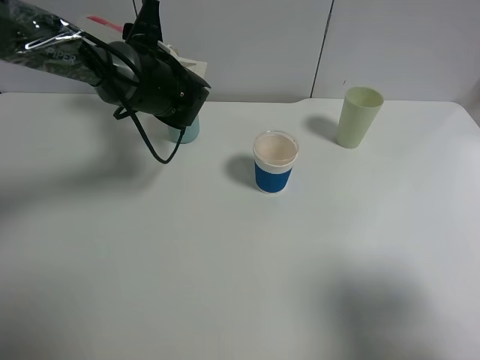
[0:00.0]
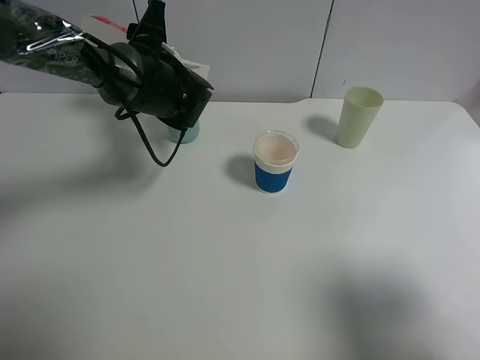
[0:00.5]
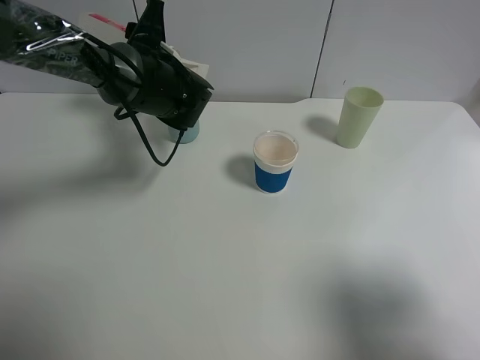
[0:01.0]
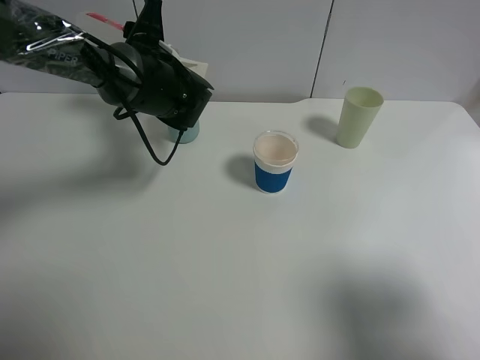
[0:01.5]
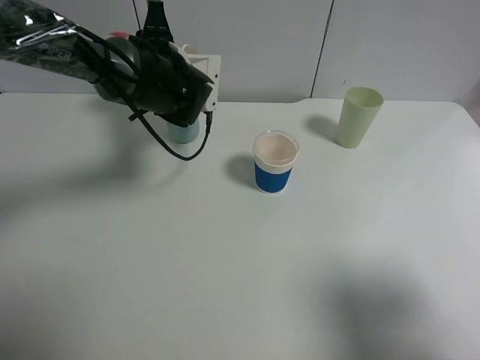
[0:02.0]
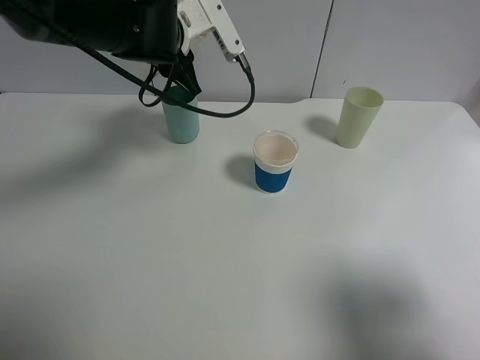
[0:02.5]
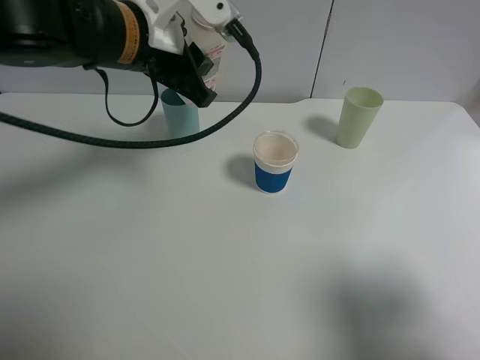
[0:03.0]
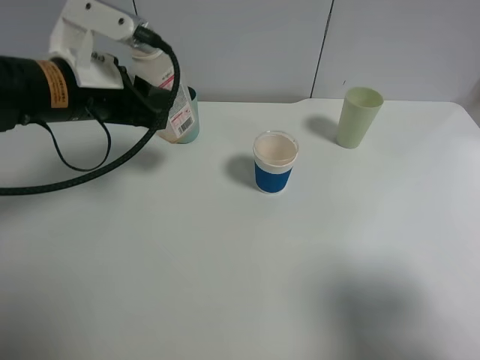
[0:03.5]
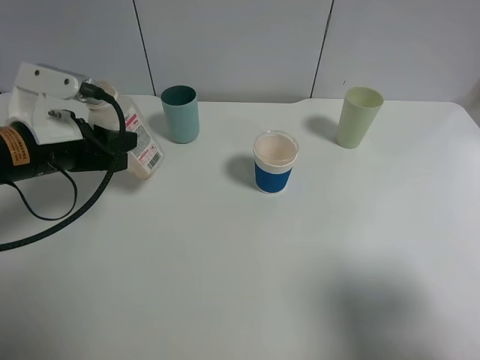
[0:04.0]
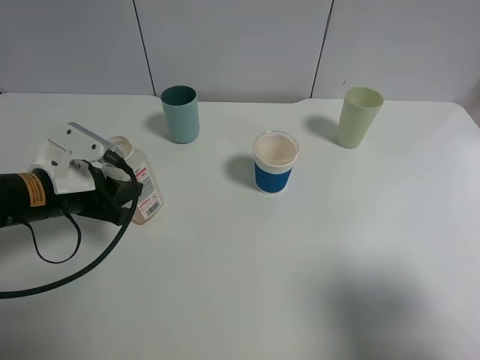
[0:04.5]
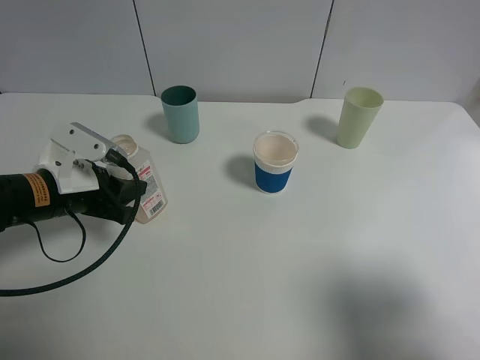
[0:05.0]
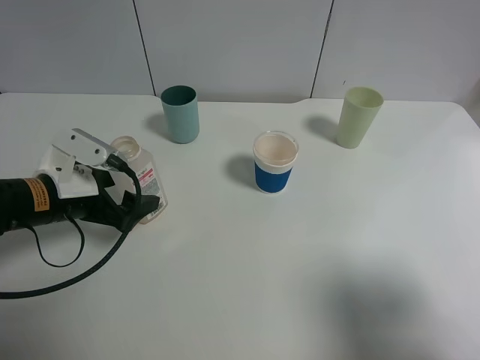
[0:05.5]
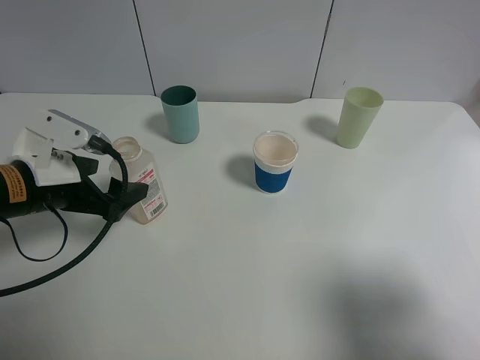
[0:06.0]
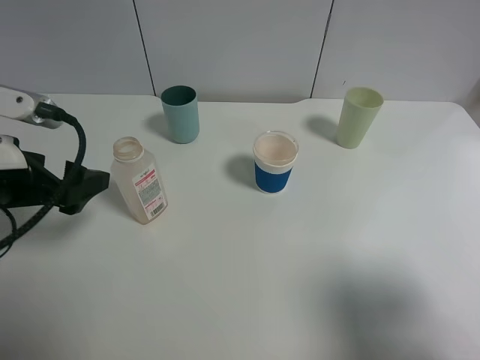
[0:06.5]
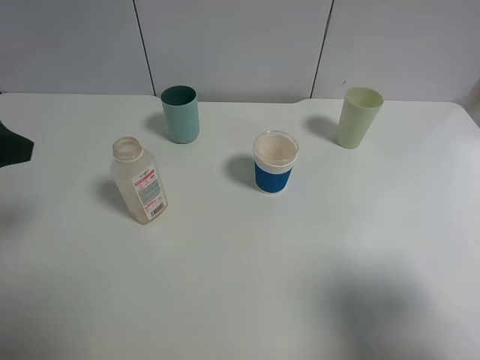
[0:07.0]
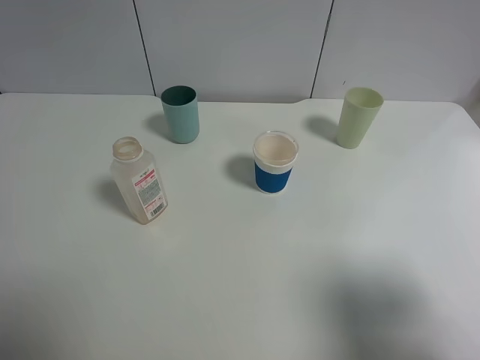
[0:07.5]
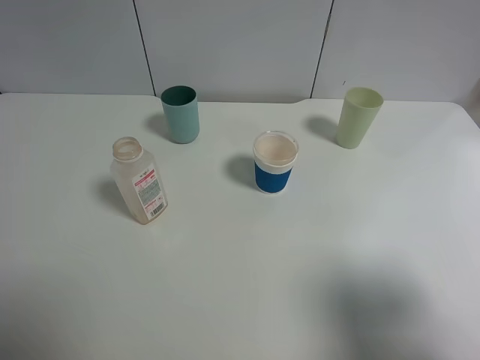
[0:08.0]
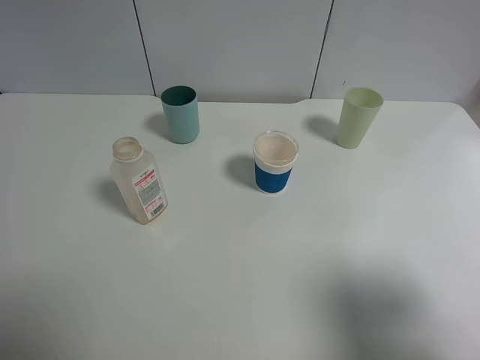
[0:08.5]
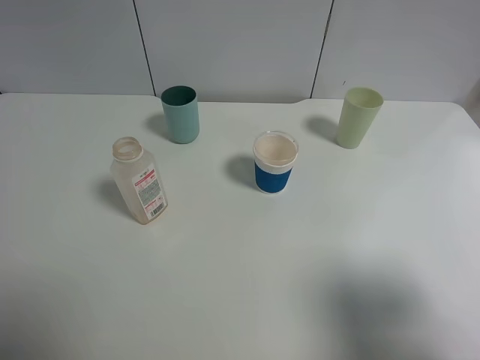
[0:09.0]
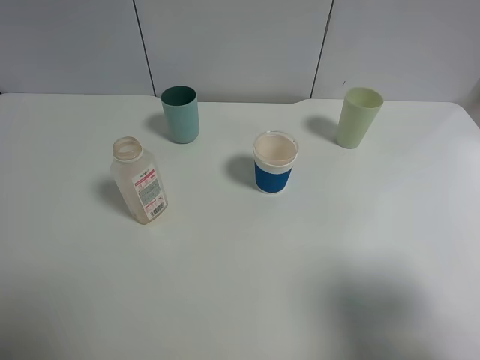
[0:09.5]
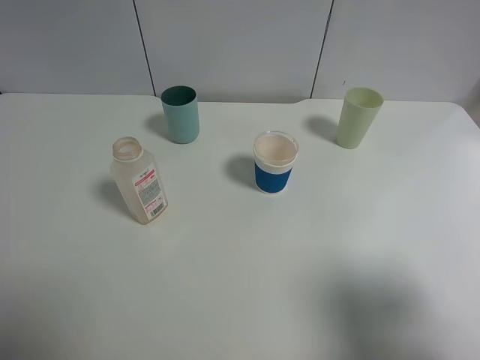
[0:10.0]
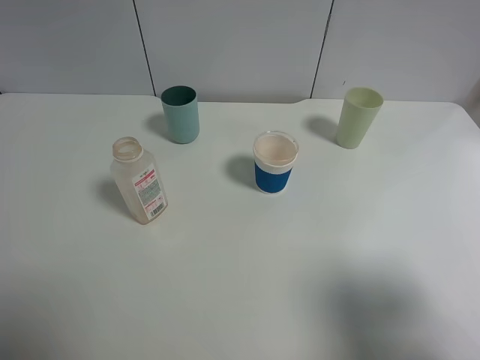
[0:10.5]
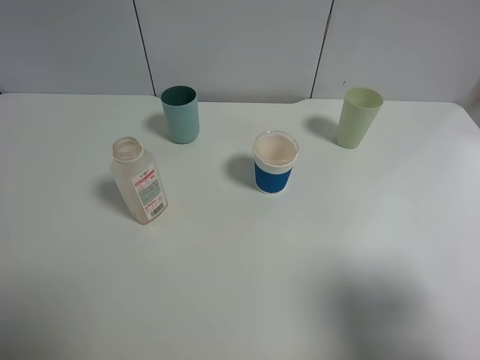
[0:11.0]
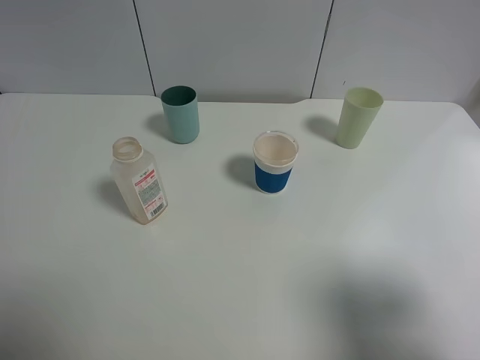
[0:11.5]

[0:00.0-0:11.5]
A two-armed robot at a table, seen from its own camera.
Task of the whole recording: use a gripper to hold the bottle of the drink and pour it into a random cup.
Step, 0:00.0 to 0:02.0: Pour the cranberry juice into the cyan cup with the left gripper.
Step, 0:02.5 to 0:05.5: Place the cranberry juice bottle on the table with the left gripper.
0:00.0 to 0:02.0: The grippers make only small movements.
0:02.0 to 0:04.0: The left gripper shifts about 20 cm backward and to the left.
0:04.0 to 0:06.0: The left gripper opens its fingers.
0:06.0 to 0:07.5: The left gripper travels upward and backward by roughly 20 cm.
0:09.5 to 0:11.5: The two grippers keep their place.

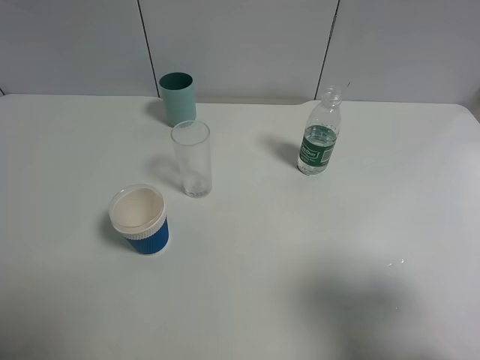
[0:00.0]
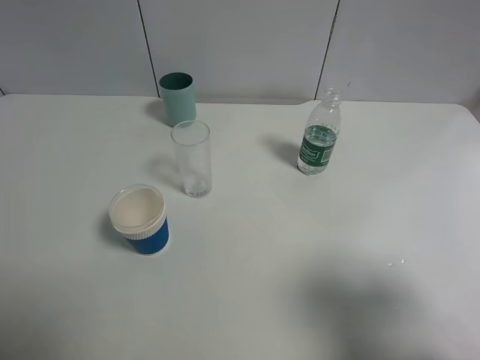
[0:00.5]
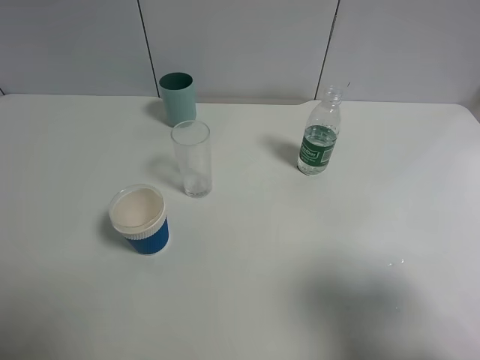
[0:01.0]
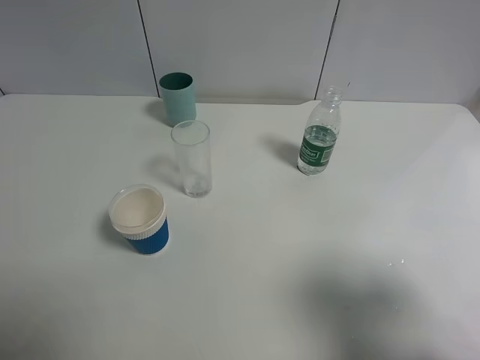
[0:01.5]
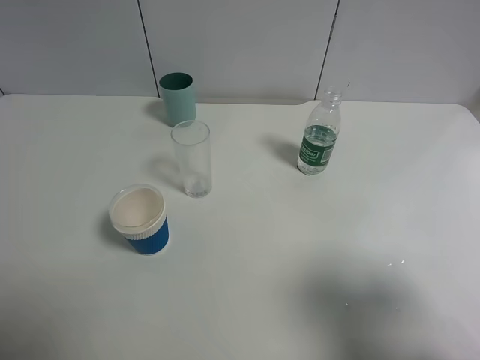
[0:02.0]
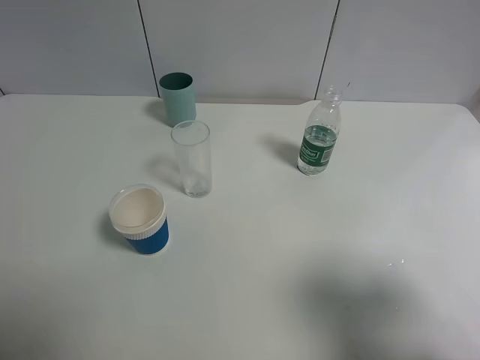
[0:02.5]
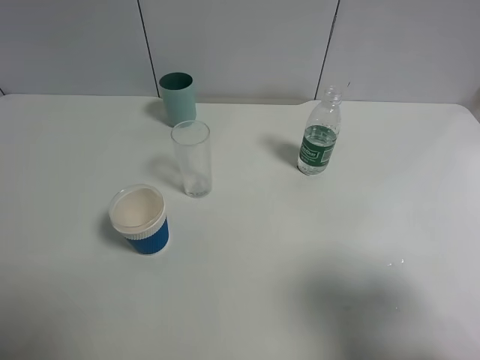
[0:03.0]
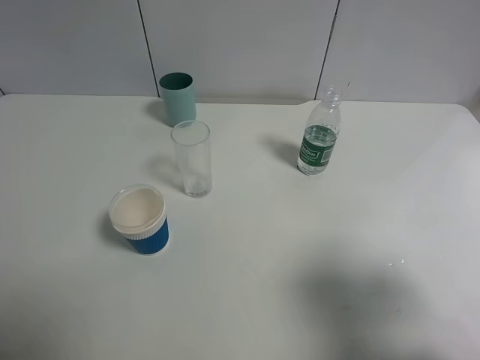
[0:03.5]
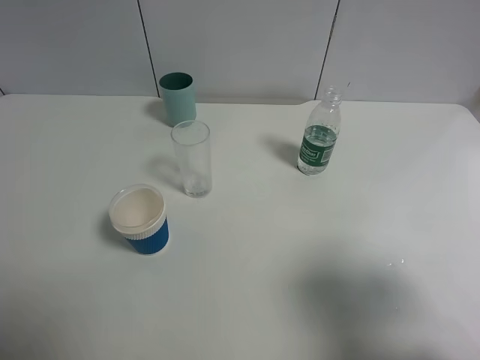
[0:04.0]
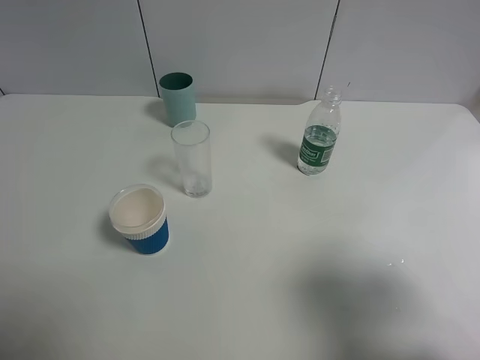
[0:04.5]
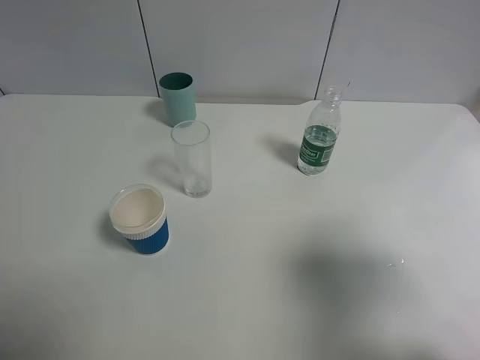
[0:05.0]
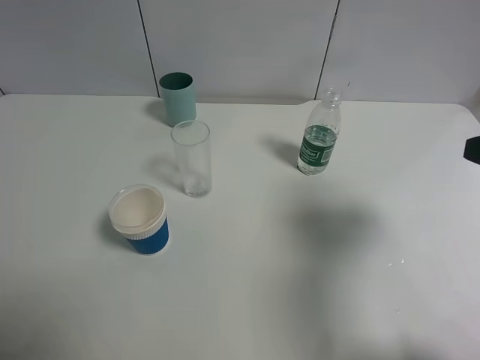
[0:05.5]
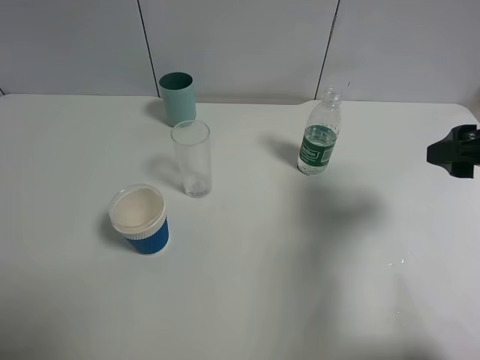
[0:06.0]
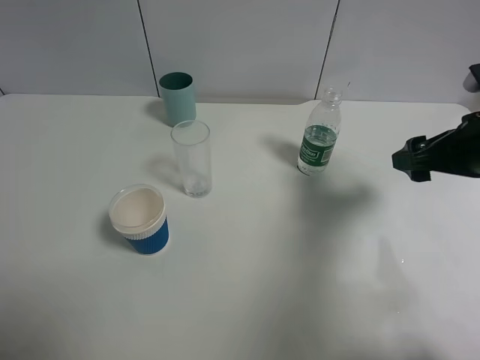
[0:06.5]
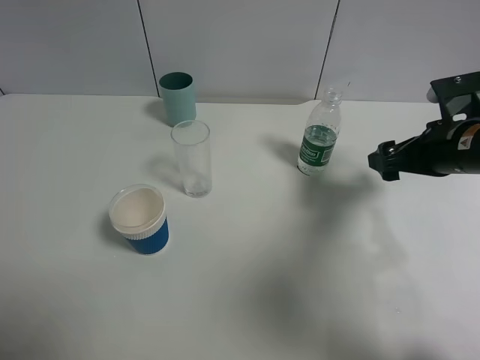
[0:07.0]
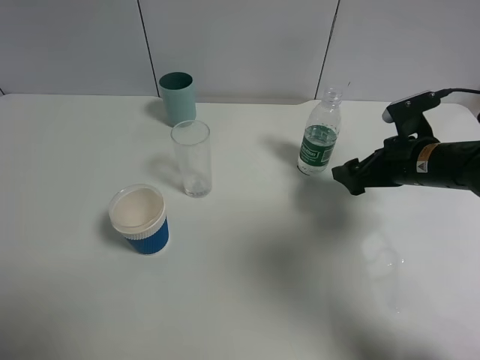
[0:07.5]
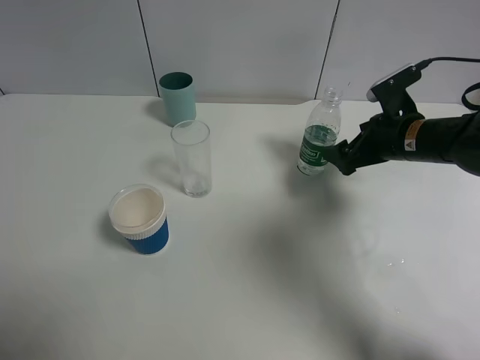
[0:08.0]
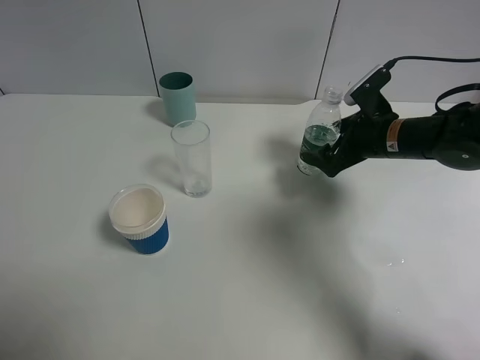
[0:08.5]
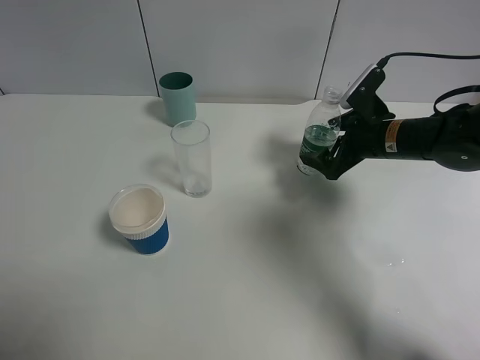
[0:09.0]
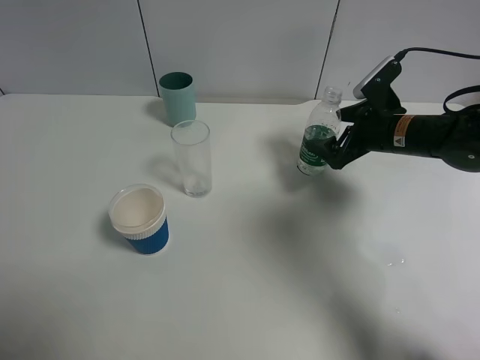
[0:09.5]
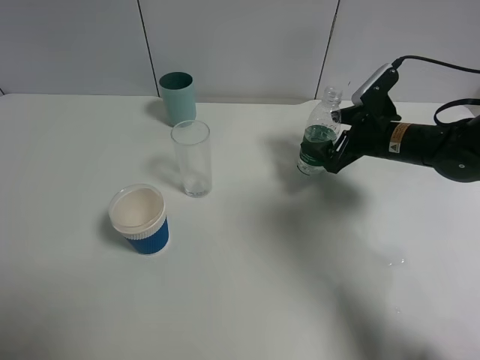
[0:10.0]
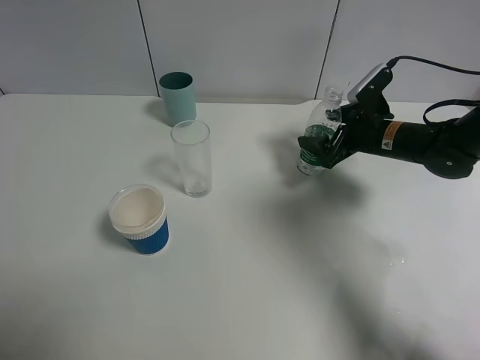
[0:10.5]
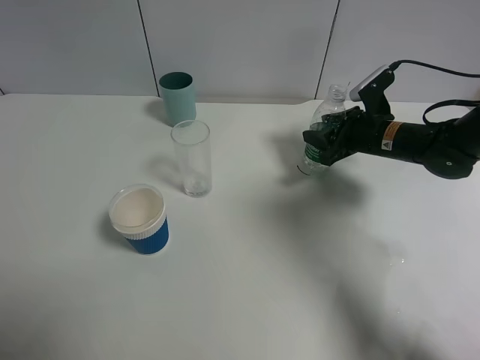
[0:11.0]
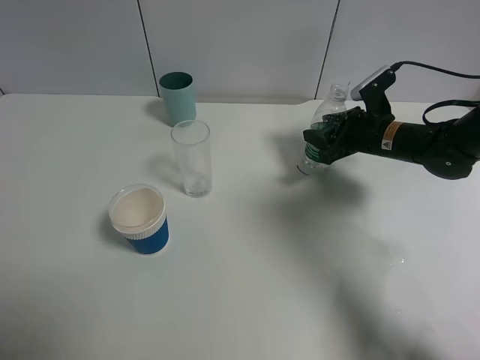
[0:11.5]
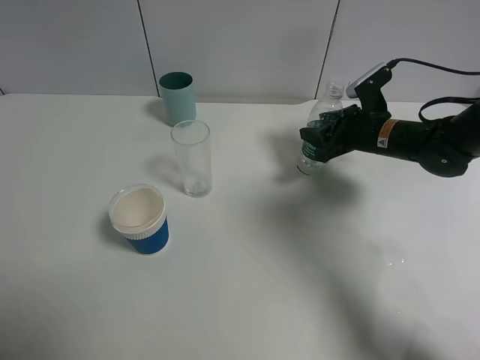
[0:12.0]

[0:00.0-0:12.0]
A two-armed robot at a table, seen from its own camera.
Task of the whole recording: use a gripper to hold the bottle of the drink and pour it into a random cup.
Step, 0:00.0 to 0:10.5: Grasp the mineral water bottle with the right gripper.
0:00.0 to 0:02.0: The two grippers keep their place.
0:04.0 to 0:06.0: The right gripper shifts about 15 cm forward.
0:06.0 to 0:08.0: The right gripper travels forward and downward by about 15 cm.
0:08.0 to 0:10.0: The grippers move only a little.
0:10.0 to 0:12.0: The right gripper closes.

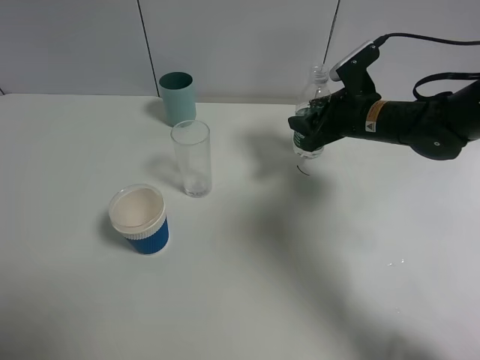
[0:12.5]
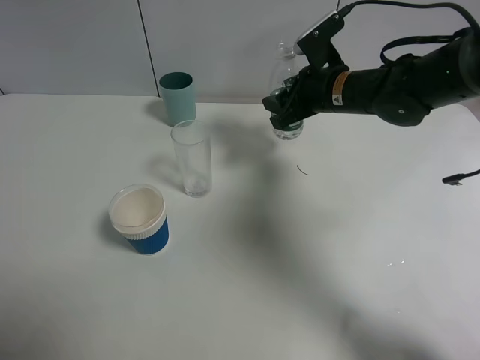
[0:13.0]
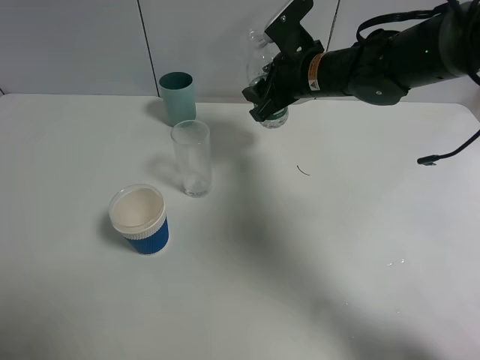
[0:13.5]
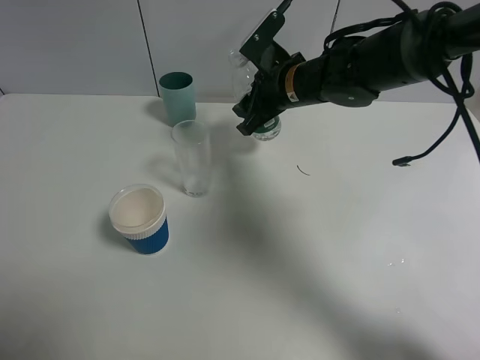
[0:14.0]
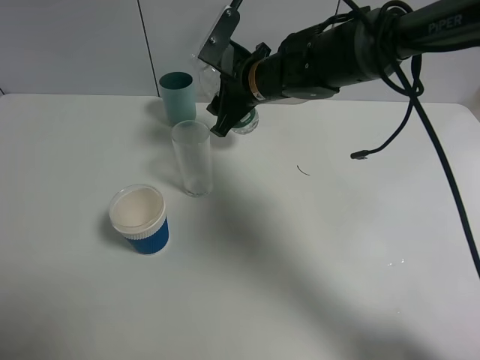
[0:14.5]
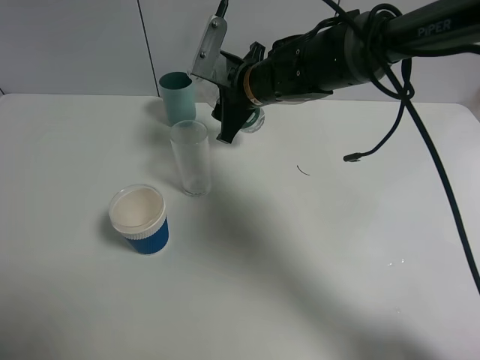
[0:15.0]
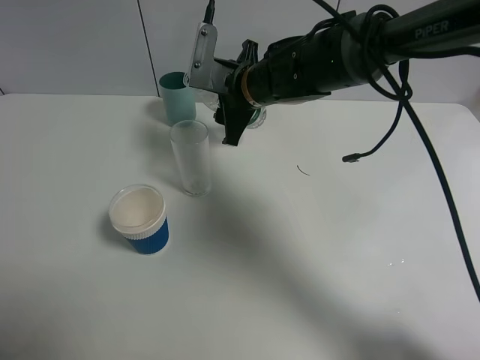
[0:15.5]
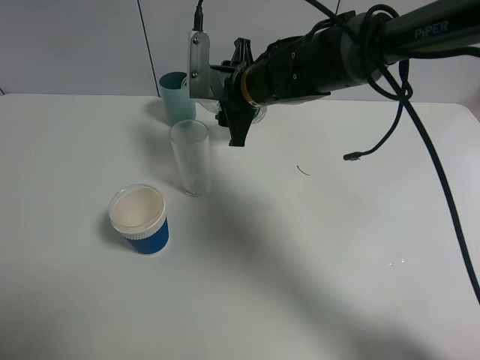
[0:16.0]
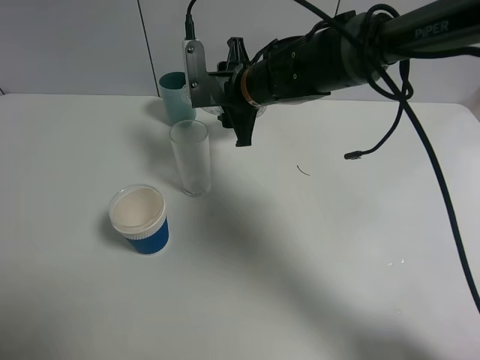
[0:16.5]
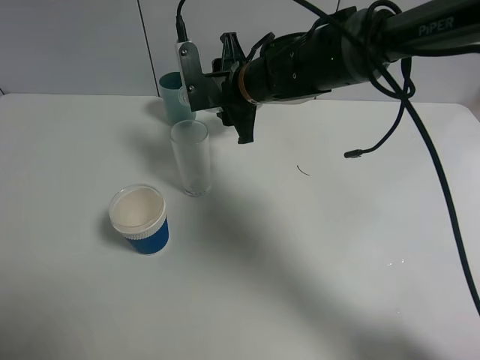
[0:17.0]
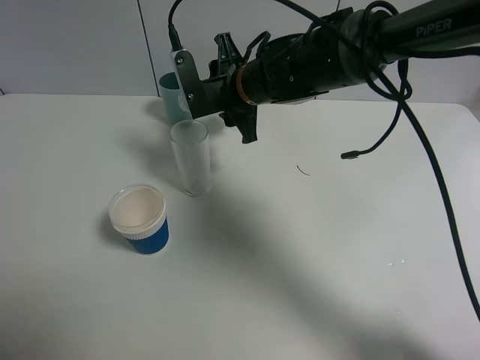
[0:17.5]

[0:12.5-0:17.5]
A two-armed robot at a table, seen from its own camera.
Task of the whole recording: use a gripper to hold the bottle of the drink and pour it into a random cup.
0:12.5 to 0:15.0: The right gripper moves to the left, roughly 15 cm.
